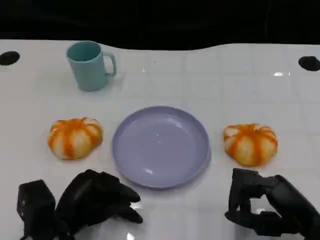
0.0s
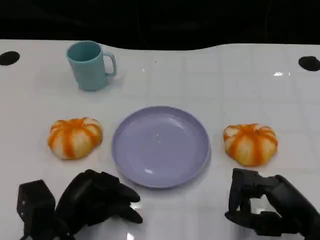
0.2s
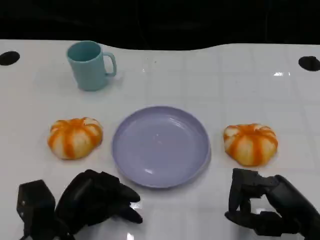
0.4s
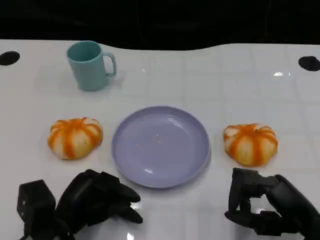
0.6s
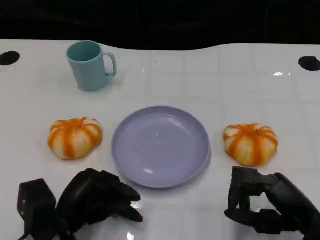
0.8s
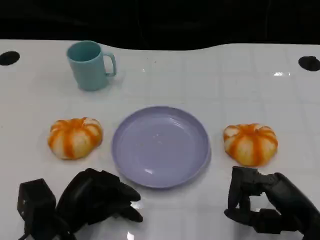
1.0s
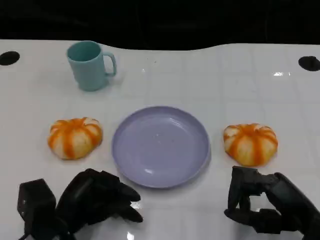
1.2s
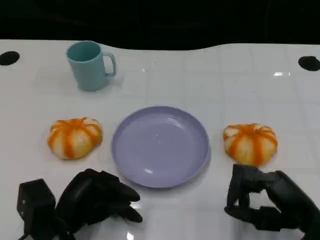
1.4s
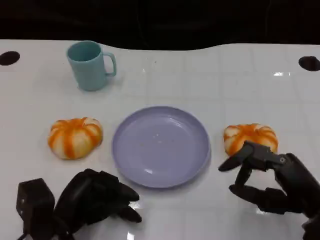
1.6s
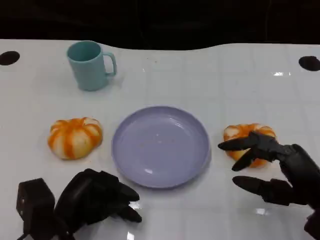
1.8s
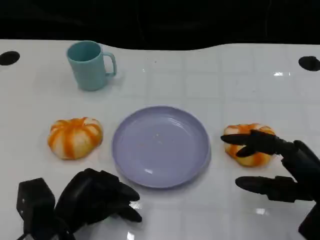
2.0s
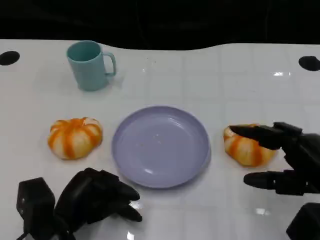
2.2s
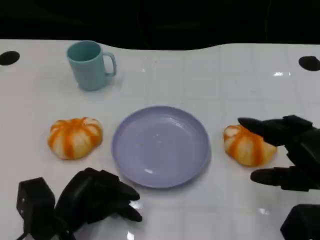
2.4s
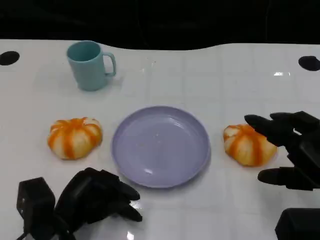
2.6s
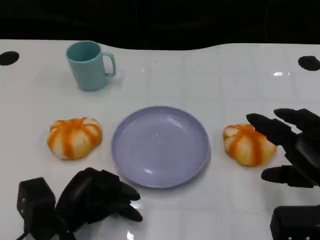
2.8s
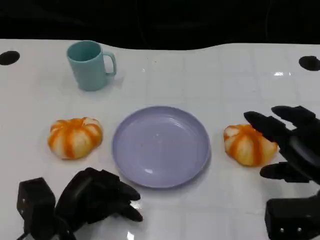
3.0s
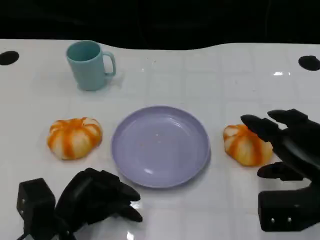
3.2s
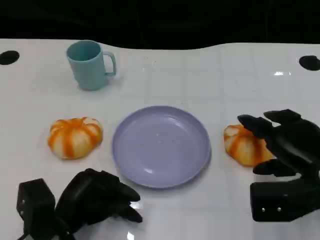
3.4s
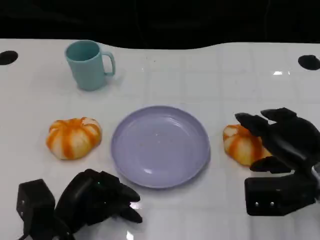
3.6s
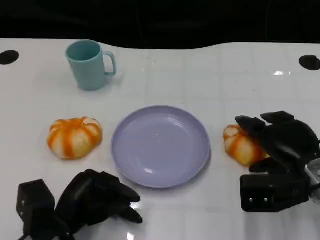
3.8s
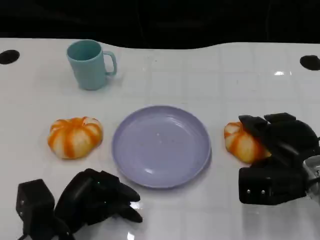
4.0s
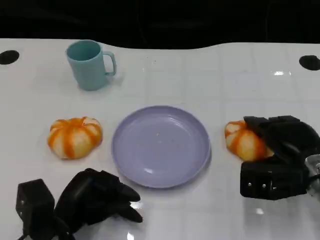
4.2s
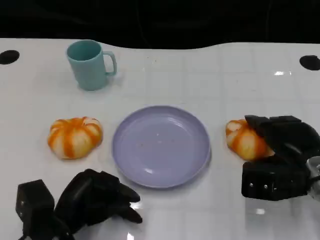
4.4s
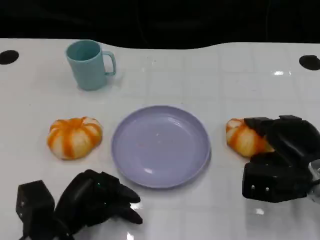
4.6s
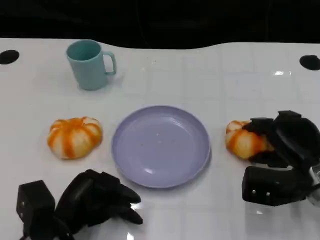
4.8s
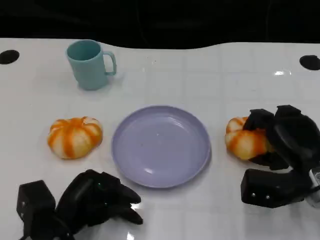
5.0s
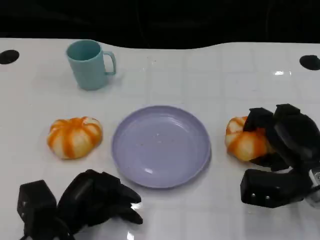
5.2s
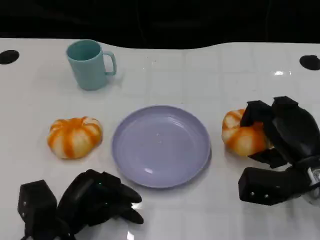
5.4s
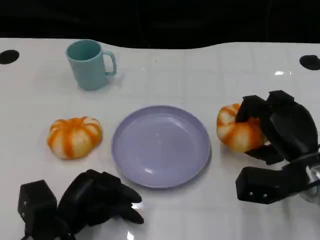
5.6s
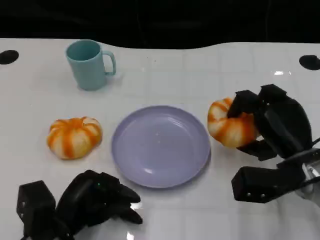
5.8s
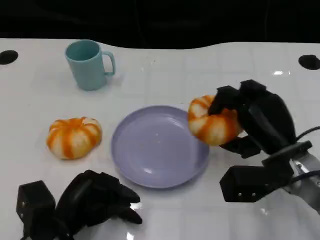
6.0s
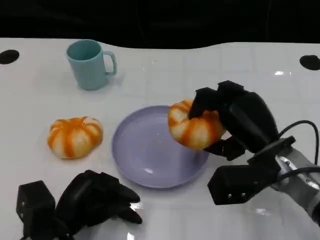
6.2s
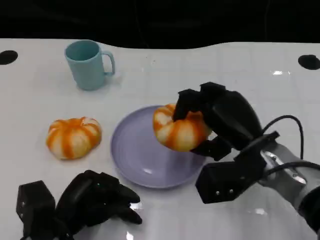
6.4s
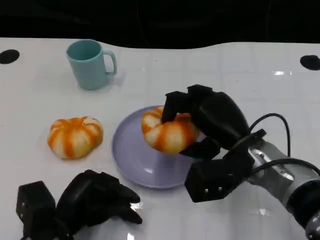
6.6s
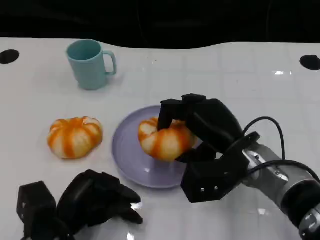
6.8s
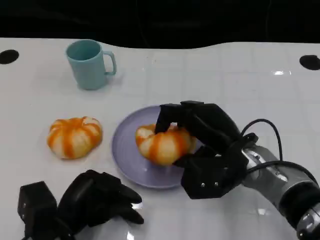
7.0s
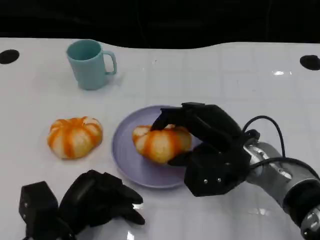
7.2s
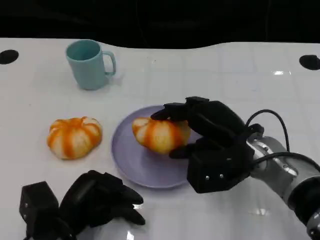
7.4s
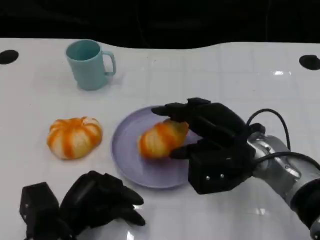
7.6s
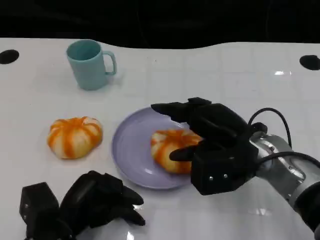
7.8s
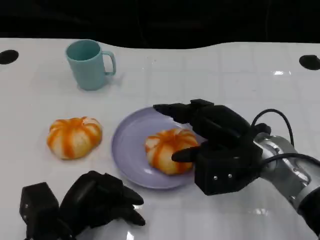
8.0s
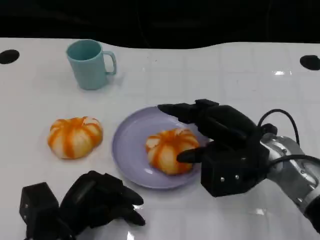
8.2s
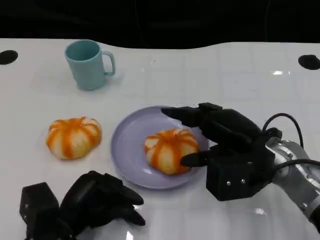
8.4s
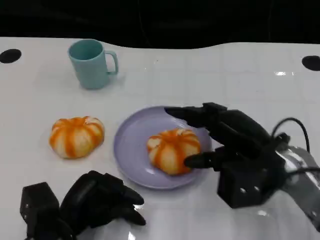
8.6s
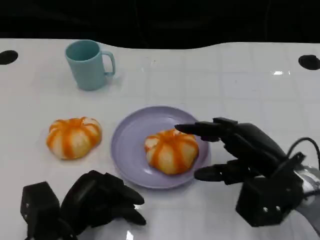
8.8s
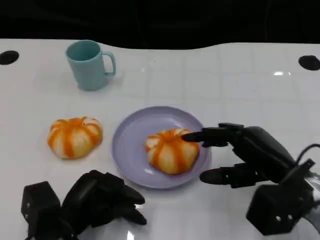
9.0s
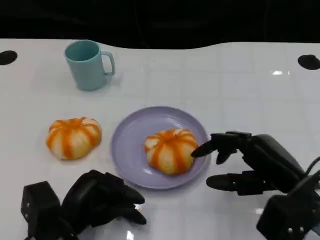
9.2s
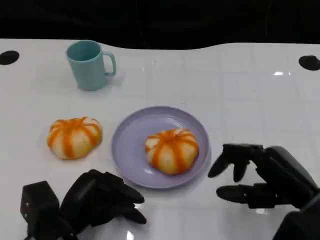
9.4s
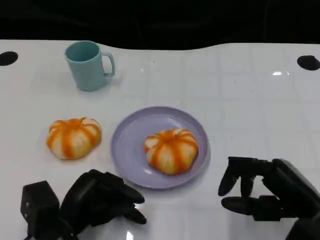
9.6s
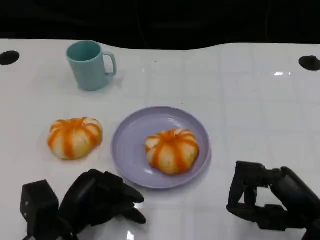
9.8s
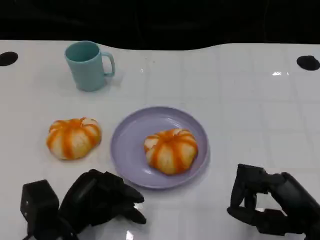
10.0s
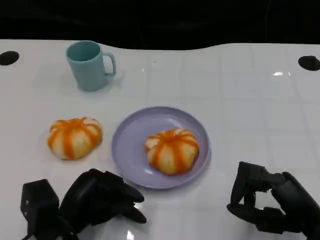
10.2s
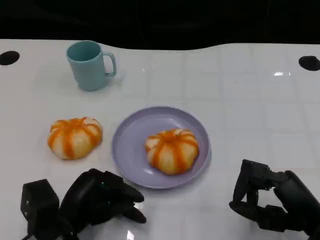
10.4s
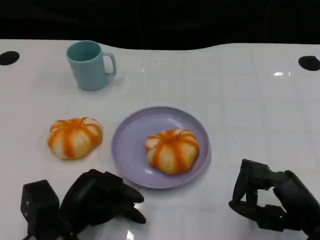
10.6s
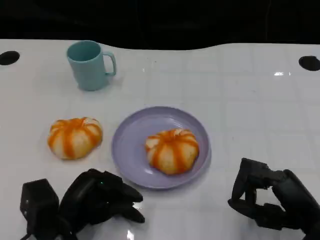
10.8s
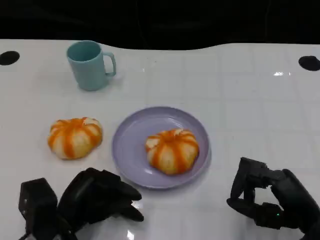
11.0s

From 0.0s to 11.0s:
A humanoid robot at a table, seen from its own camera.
Task of the whole recording: Grasp the bread from the table and place it into the plate.
From 0.0s to 1.6s: The hands stay close to where they were, moving slightly.
From 1.6s to 3.2s: The right hand changes place by approximately 5 cm.
From 3.2s to 4.8s: The right hand moves roughly 5 cm.
From 4.8s to 6.2s: The right hand goes approximately 5 cm to the left.
From 7.8s to 9.4s: The right hand heads backward and to the right, covering some 10 cm.
From 9.4s to 11.0s: The hands move only a little.

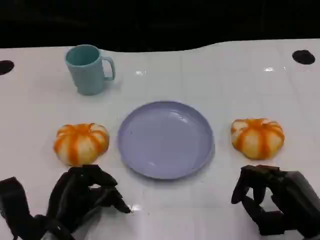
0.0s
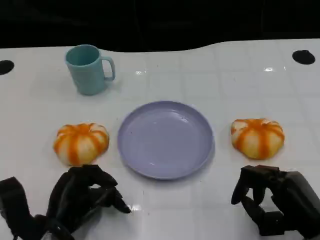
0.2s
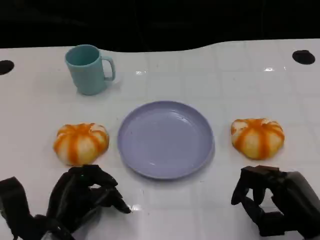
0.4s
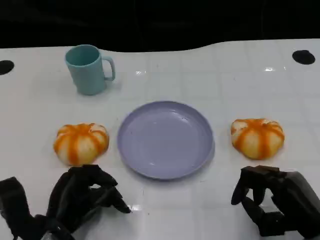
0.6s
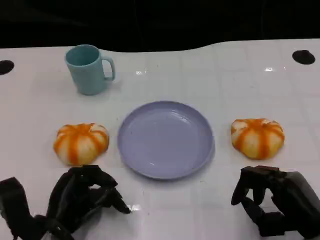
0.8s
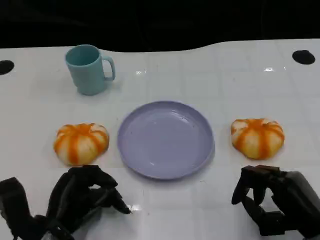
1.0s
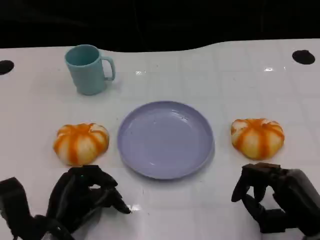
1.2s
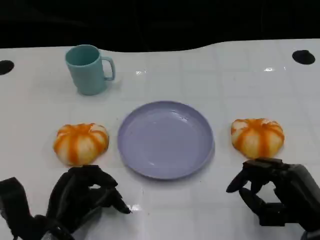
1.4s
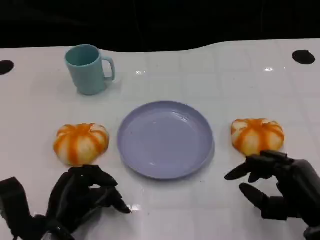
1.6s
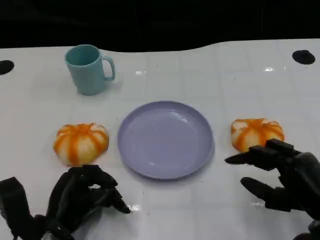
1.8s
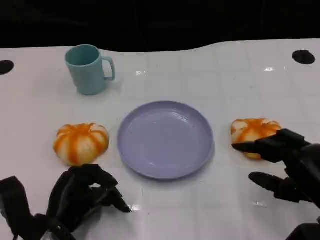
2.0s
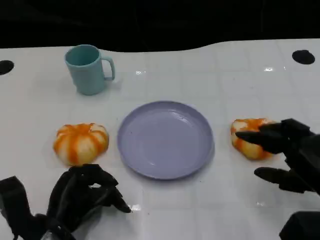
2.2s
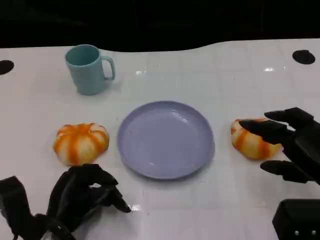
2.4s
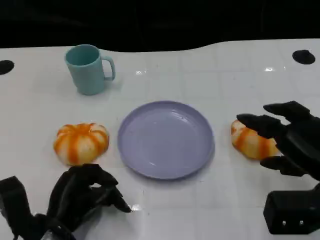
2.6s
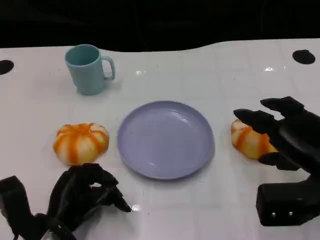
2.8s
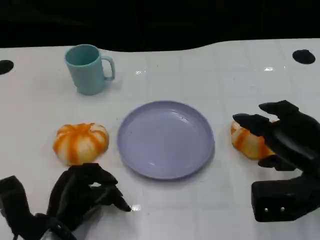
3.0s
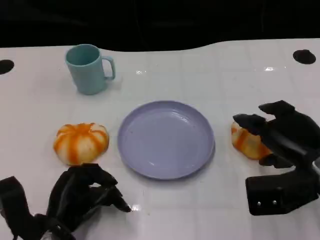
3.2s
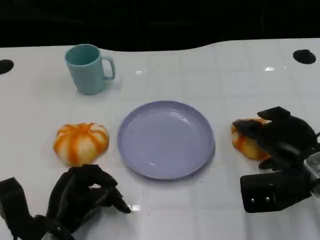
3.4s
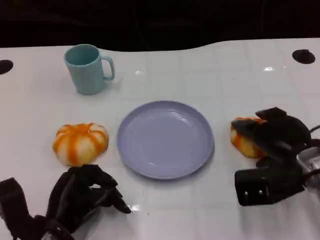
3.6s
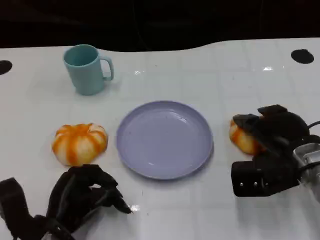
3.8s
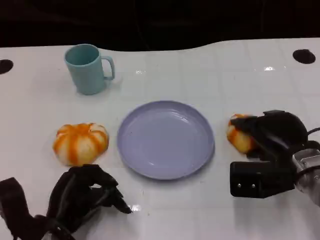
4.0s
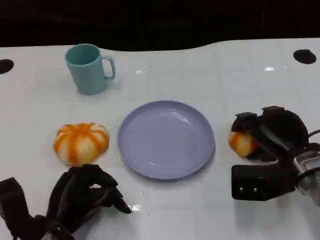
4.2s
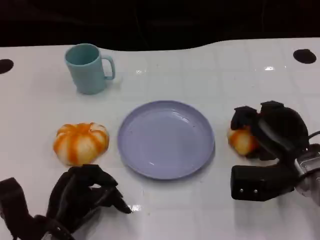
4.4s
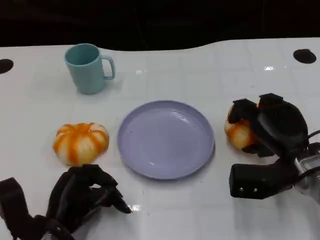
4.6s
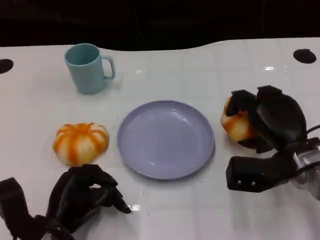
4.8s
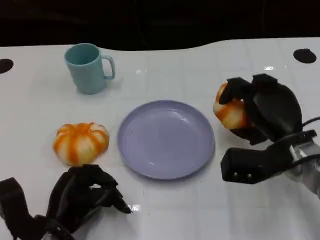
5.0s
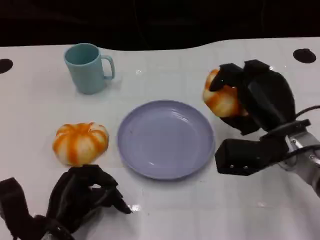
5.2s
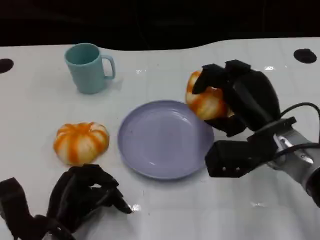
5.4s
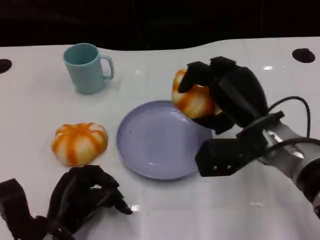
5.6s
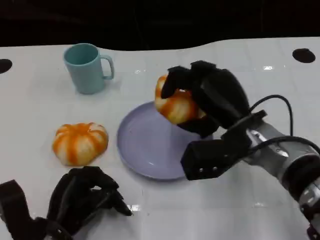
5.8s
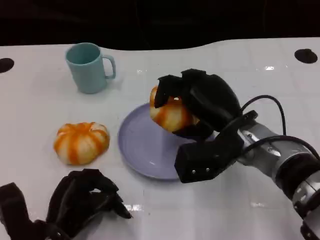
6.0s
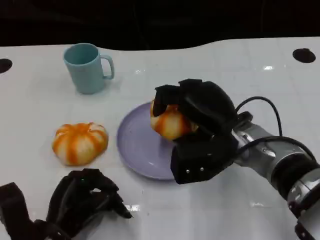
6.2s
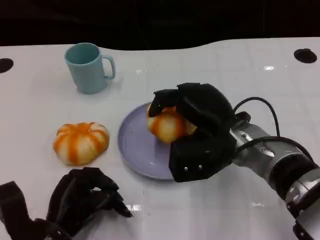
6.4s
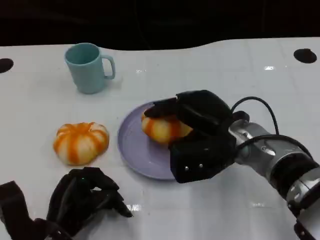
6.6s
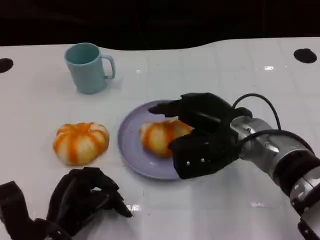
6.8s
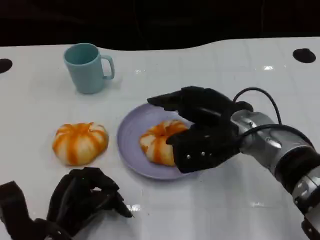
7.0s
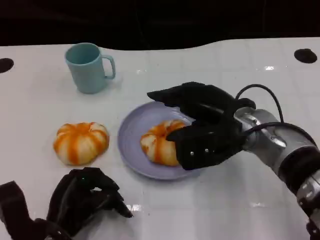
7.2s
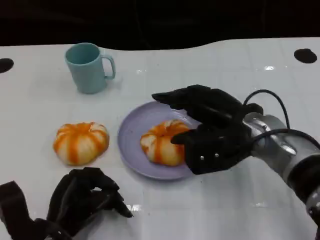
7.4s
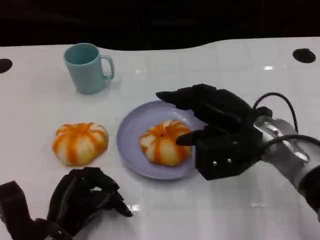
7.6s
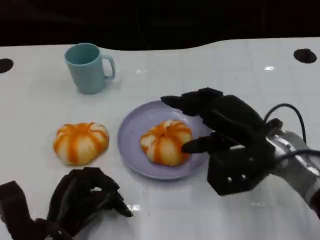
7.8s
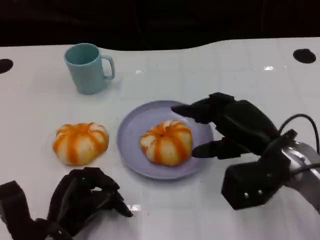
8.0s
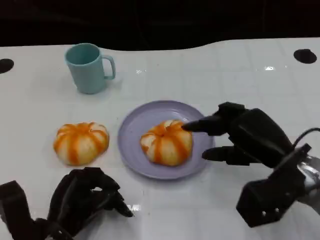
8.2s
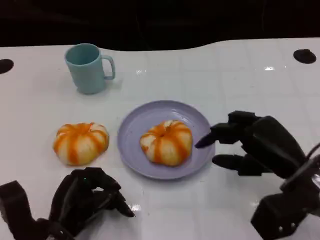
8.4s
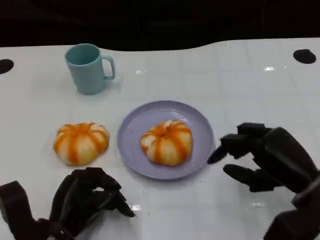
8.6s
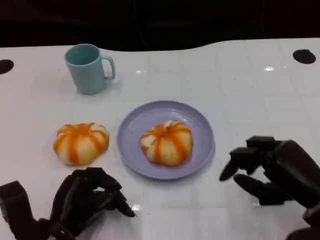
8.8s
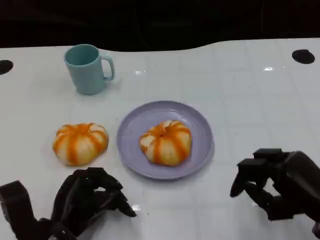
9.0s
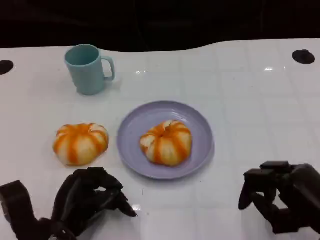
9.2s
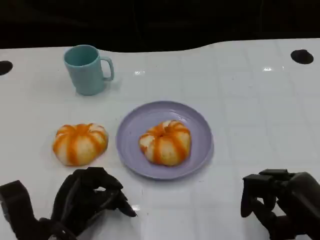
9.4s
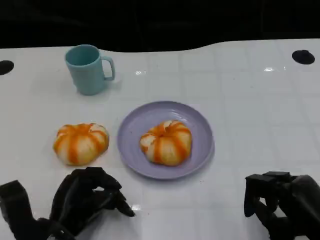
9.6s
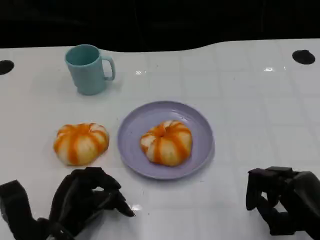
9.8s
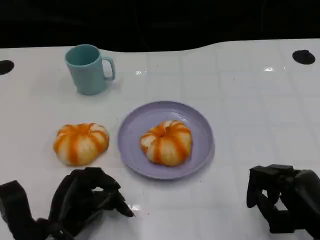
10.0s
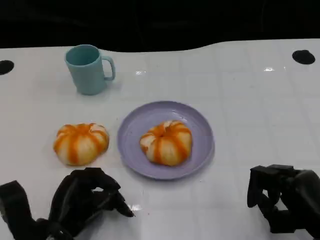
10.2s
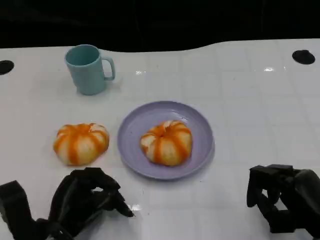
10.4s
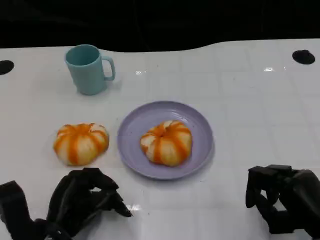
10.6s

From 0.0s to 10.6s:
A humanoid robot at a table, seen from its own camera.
Task of the whole recording: Grasp the bread from the table and place it into the plate.
From 0.0s to 1.6s: The hands move only a little.
From 1.6s to 3.0s: The right hand travels forward by some 5 cm.
From 3.0s to 4.6s: The right hand shifts by some 5 cm.
From 4.6s to 6.0s: The right hand is displaced to the left and upward by about 10 cm.
From 7.6s to 9.0s: The right hand goes about 15 cm backward and to the right.
From 9.0s to 10.6s: The hands stay close to where they were, moving slightly.

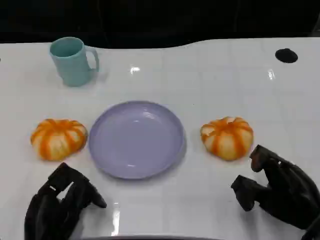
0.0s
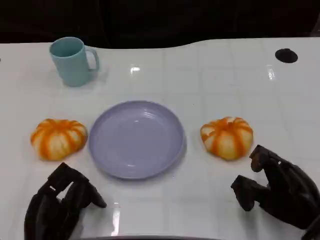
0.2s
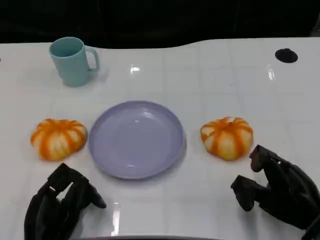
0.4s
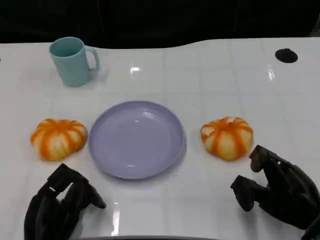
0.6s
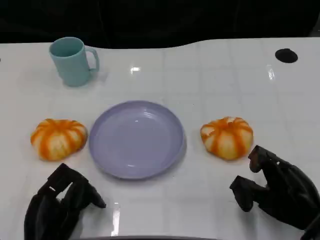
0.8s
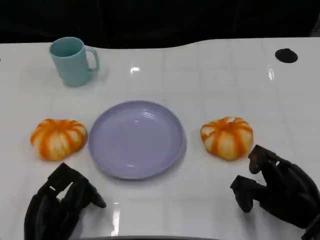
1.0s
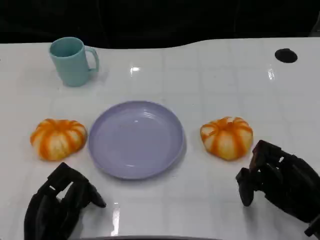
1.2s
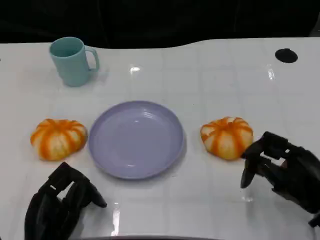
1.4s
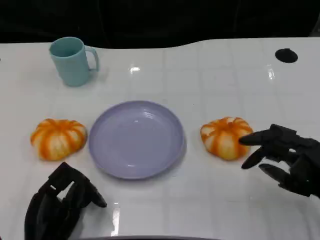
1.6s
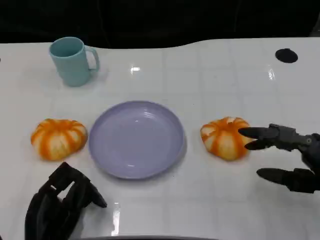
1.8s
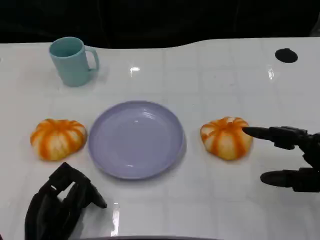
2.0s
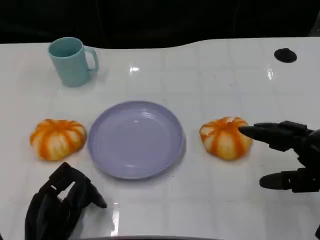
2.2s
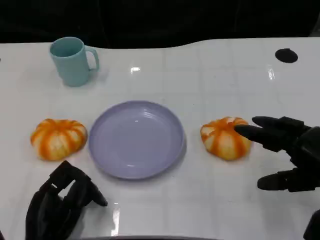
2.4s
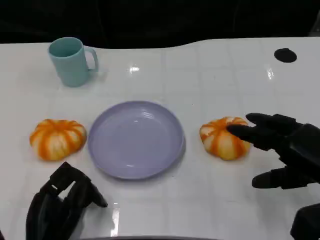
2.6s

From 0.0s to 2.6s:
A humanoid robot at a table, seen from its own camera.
Task of the whole recording: Grasp the bread from the table and place it into the plate.
From 0.0s to 1.2s: There are only small adjustments of the hands.
From 1.2s to 2.6s: The right hand goes about 5 cm upward.
